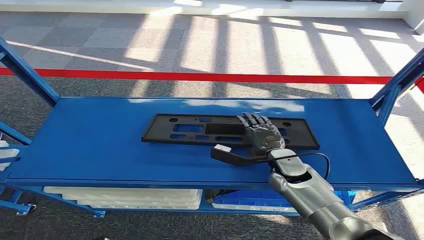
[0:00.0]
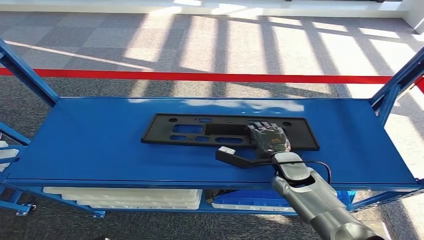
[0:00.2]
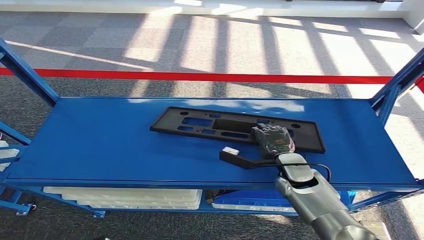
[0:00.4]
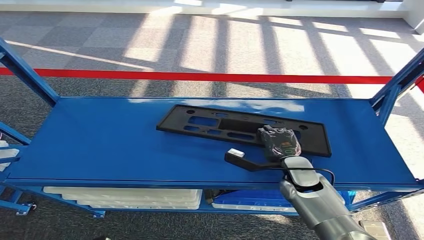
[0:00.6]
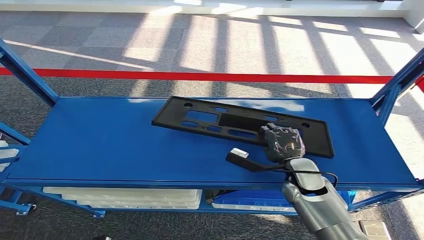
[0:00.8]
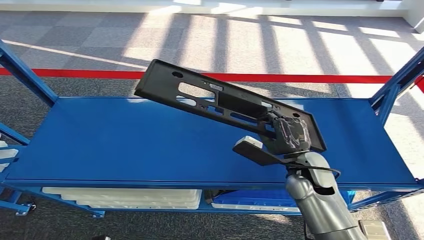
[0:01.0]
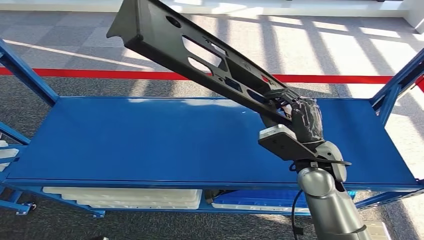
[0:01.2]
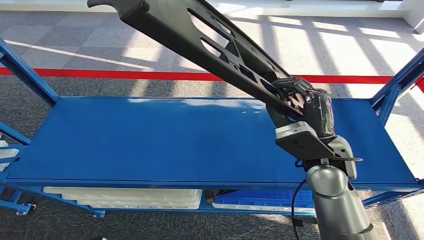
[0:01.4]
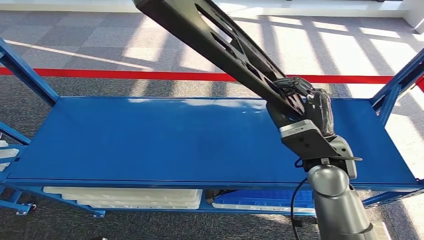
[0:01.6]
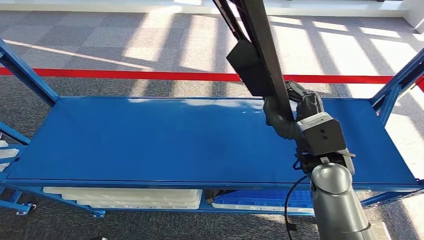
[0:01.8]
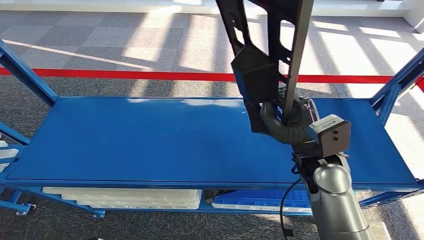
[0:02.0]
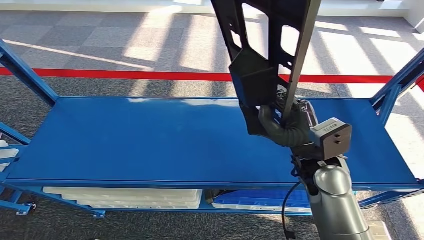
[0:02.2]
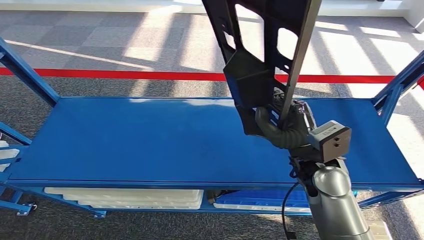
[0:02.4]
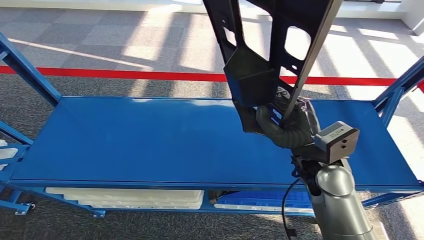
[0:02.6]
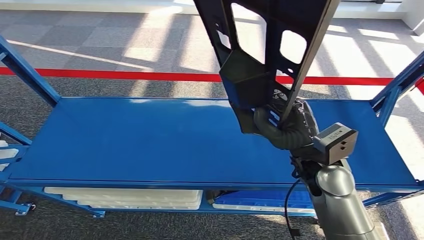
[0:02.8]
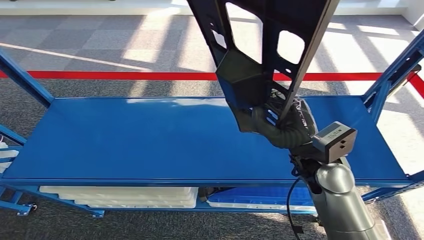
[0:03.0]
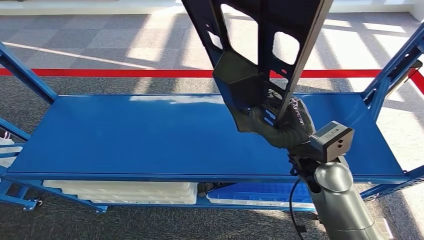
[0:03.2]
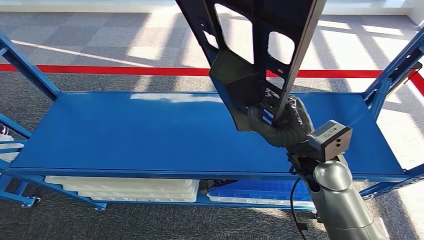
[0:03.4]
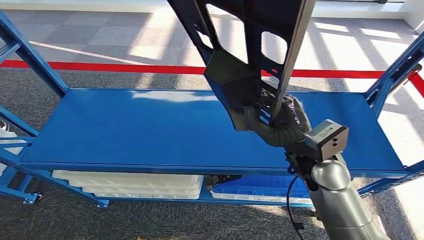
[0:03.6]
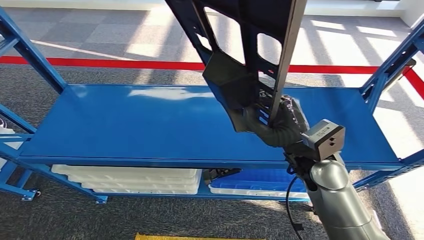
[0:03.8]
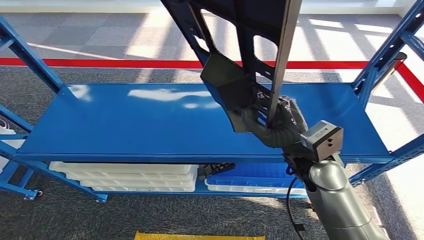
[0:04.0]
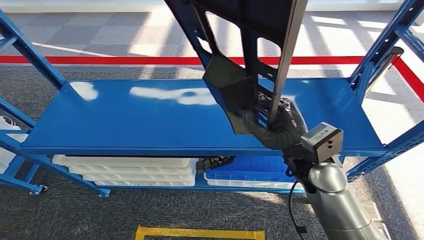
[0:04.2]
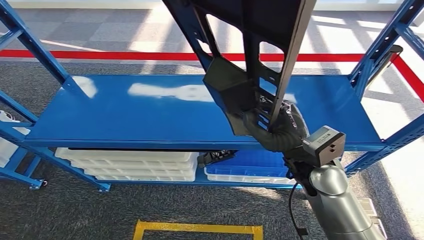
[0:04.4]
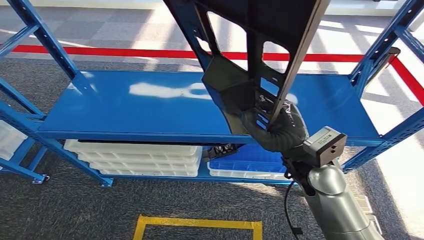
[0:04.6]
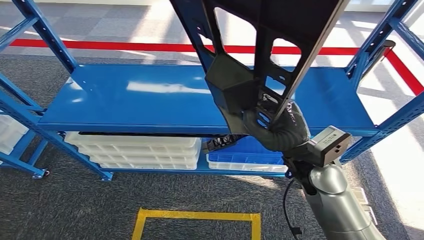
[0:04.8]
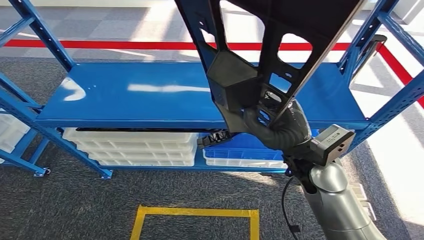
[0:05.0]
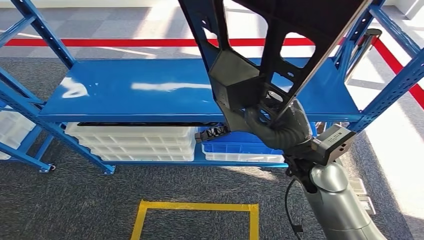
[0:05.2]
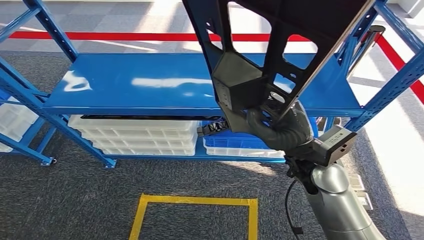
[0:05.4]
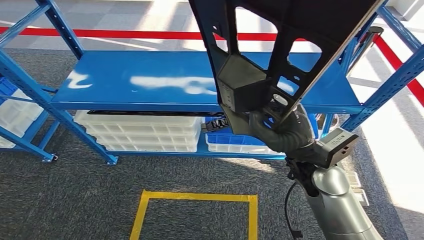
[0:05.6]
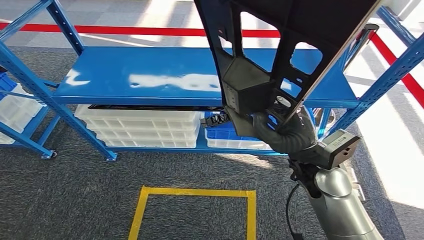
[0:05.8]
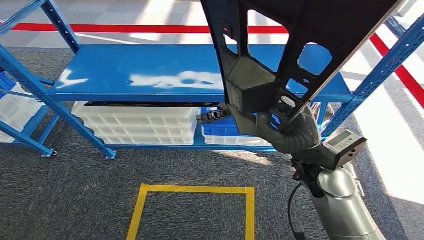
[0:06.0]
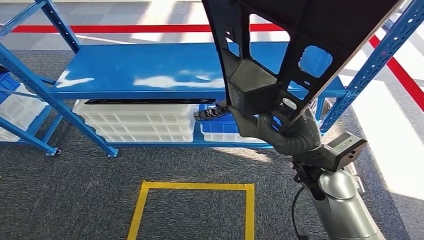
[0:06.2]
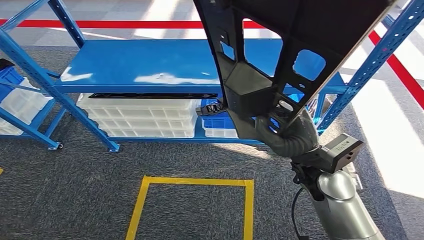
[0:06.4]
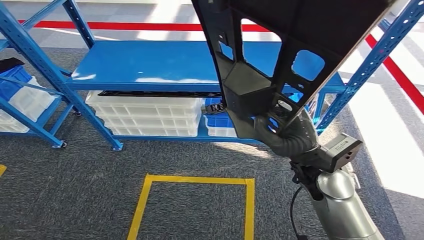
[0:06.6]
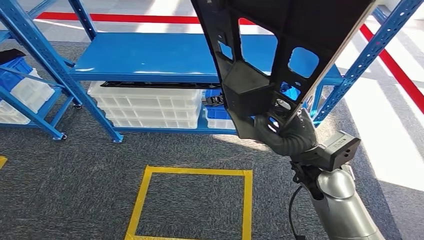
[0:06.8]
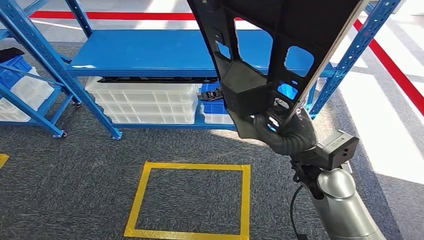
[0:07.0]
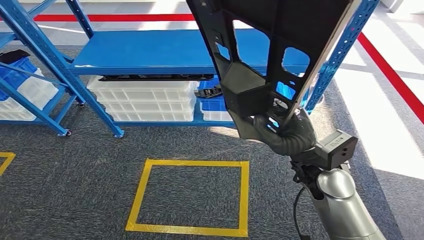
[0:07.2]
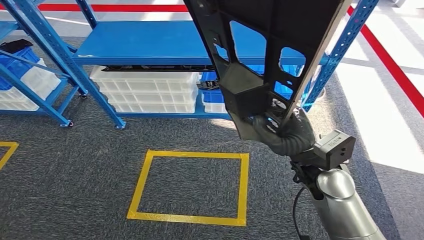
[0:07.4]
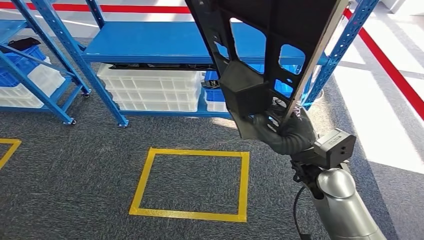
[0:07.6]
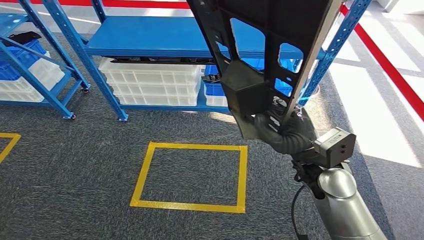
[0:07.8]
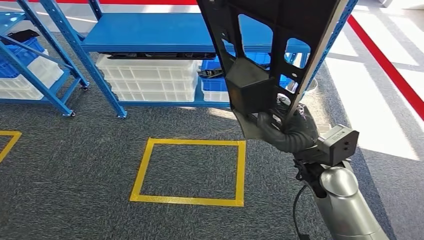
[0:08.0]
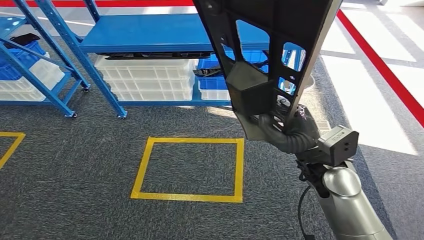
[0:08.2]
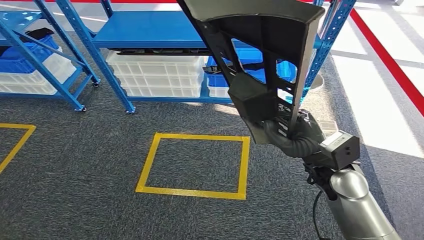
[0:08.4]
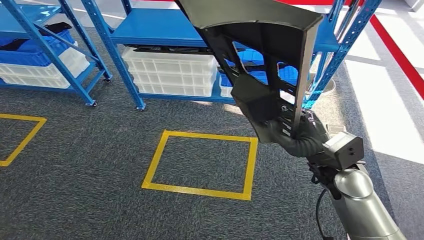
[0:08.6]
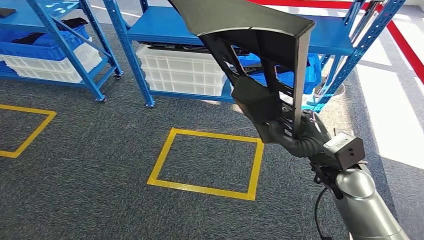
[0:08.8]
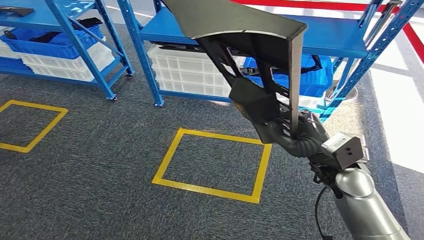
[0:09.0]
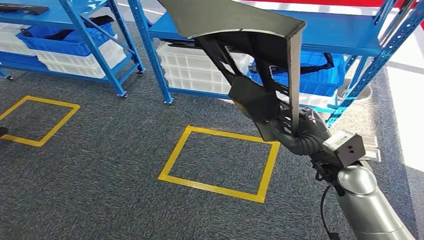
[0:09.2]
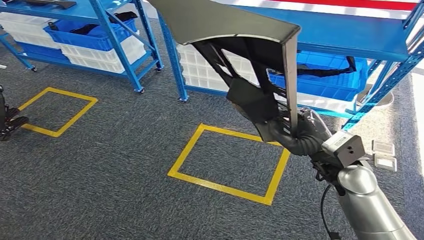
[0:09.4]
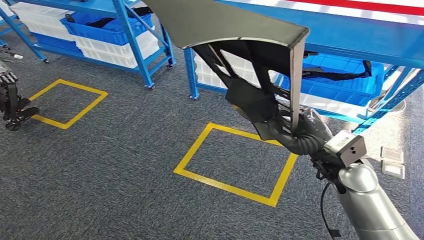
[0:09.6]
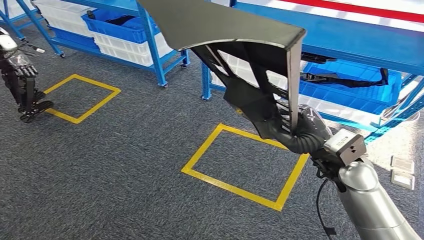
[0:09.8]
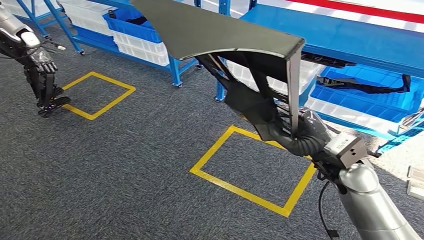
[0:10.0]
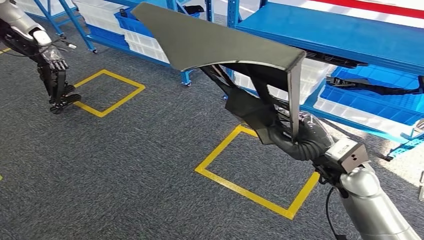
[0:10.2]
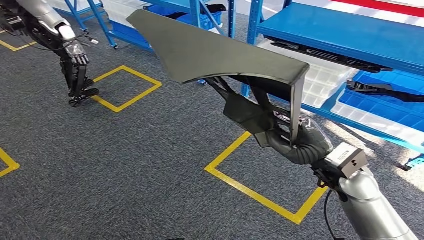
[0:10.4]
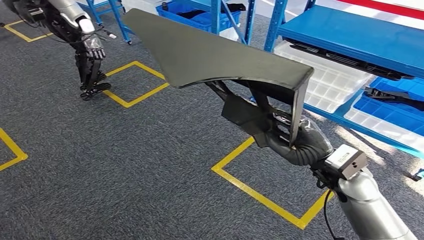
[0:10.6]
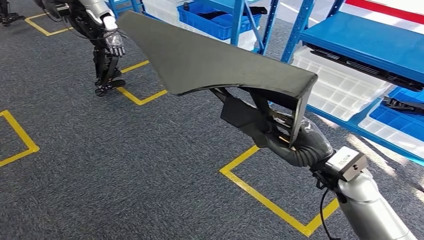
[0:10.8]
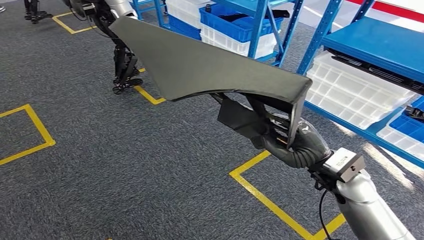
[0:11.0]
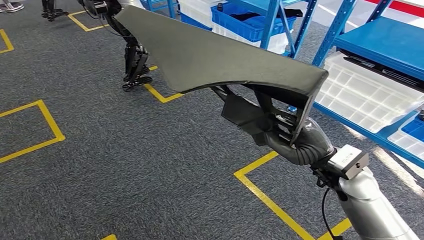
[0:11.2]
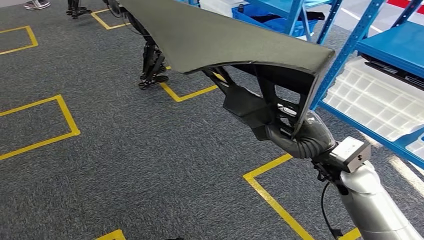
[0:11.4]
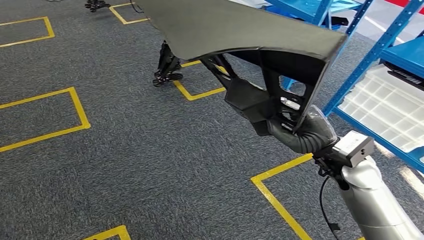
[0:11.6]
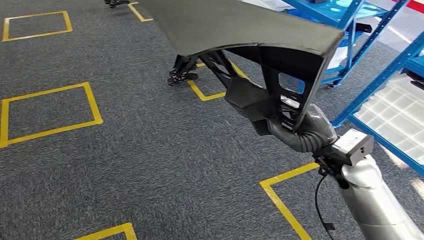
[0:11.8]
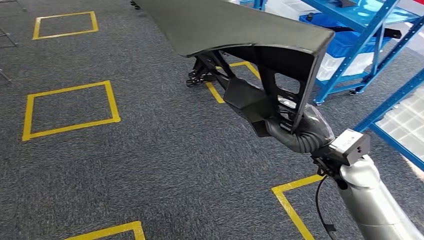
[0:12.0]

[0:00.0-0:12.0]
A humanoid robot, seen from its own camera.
Step, 0:00.0 to 0:02.4: Pick up the small component from the shelf.

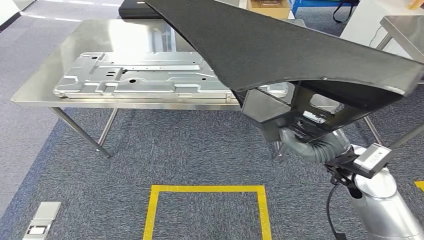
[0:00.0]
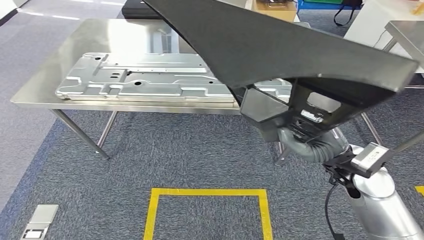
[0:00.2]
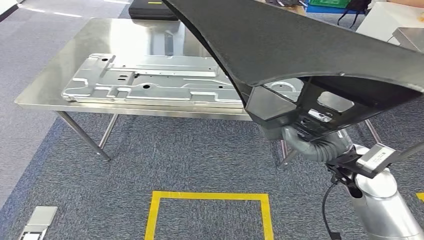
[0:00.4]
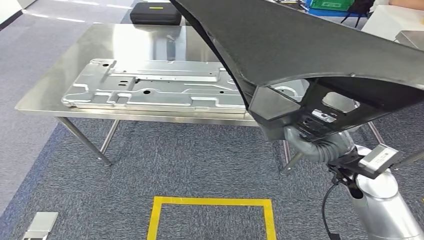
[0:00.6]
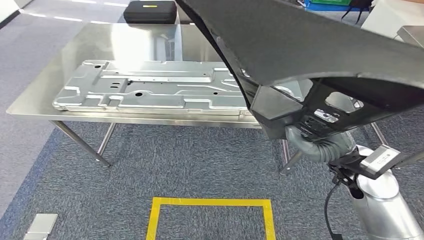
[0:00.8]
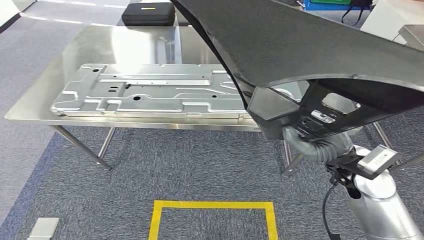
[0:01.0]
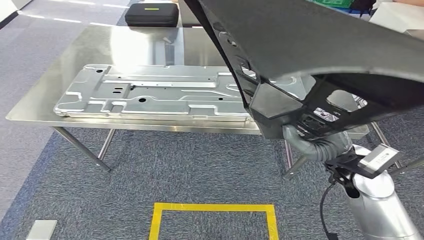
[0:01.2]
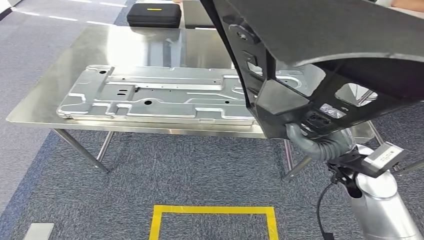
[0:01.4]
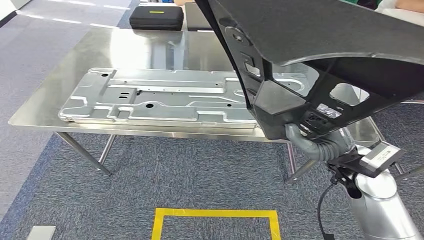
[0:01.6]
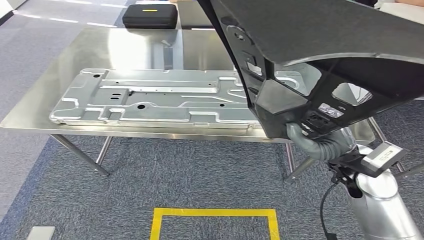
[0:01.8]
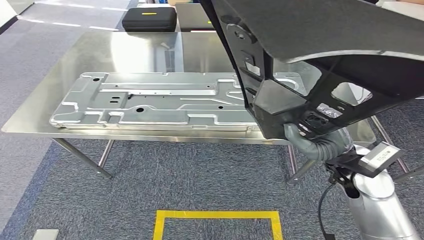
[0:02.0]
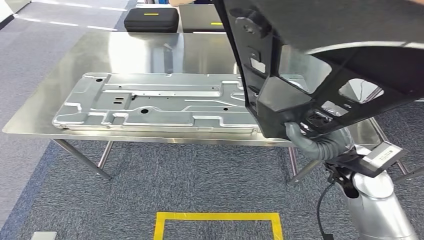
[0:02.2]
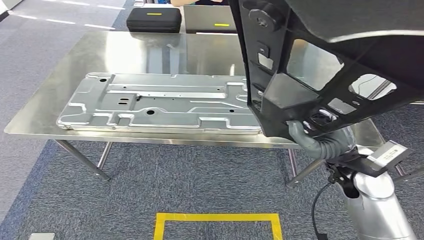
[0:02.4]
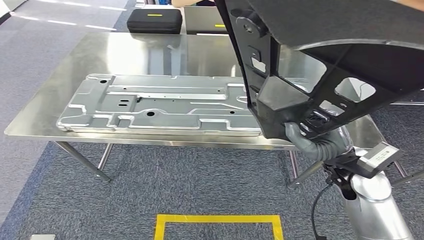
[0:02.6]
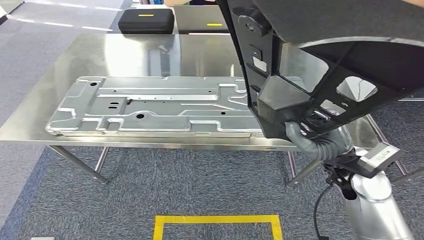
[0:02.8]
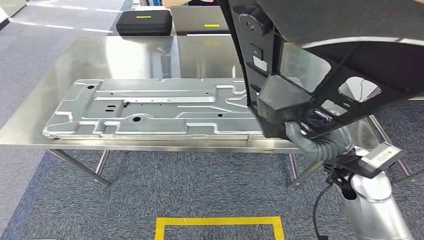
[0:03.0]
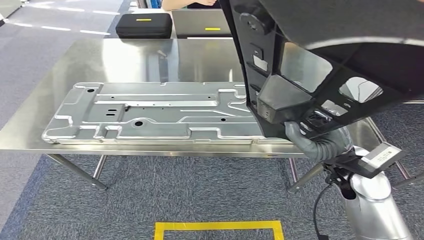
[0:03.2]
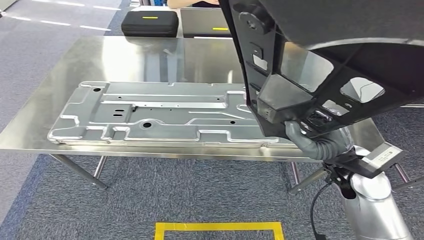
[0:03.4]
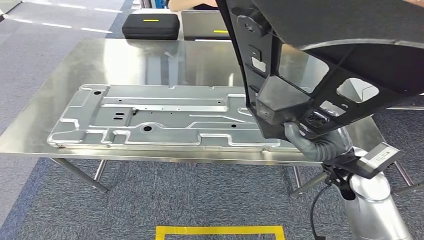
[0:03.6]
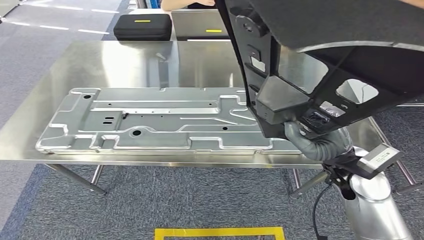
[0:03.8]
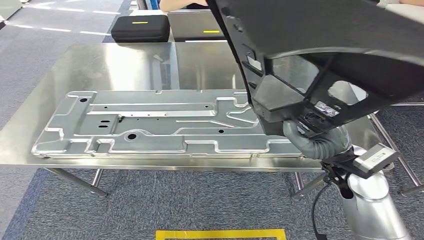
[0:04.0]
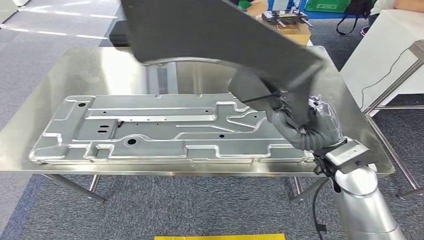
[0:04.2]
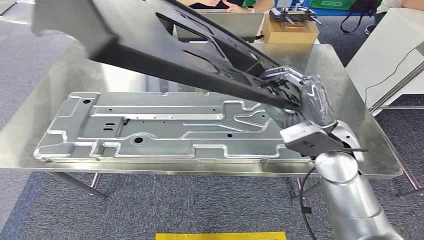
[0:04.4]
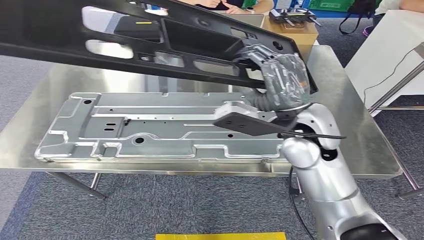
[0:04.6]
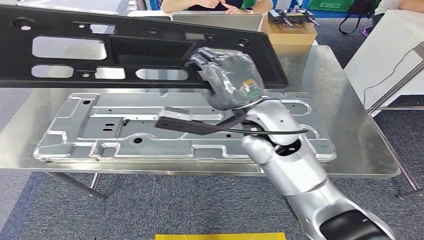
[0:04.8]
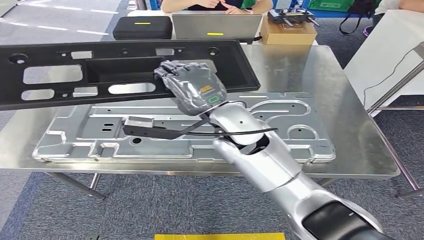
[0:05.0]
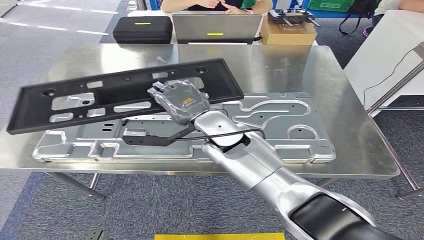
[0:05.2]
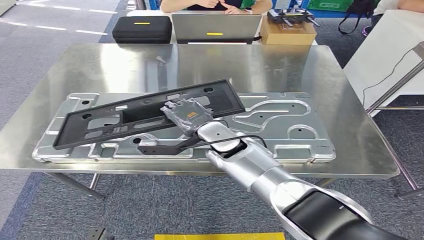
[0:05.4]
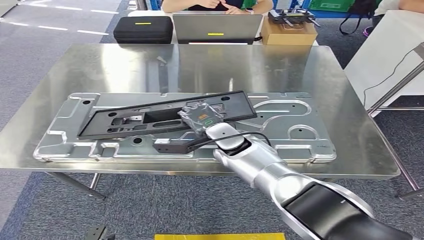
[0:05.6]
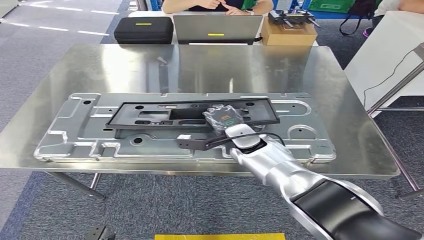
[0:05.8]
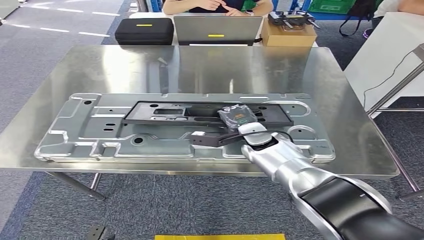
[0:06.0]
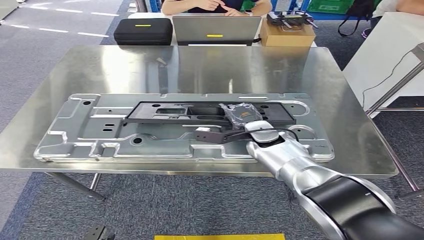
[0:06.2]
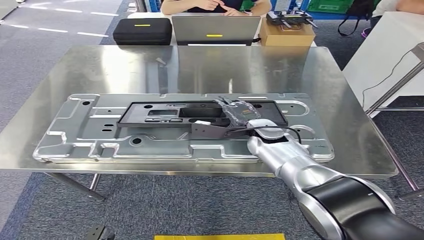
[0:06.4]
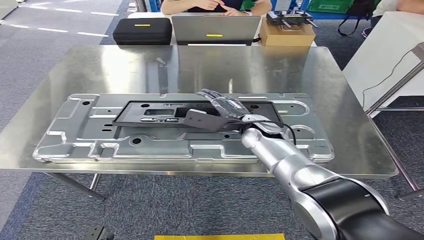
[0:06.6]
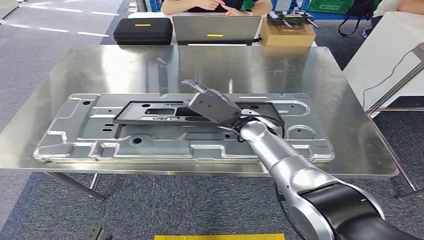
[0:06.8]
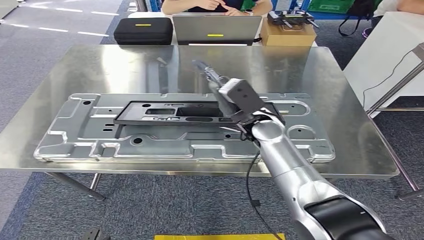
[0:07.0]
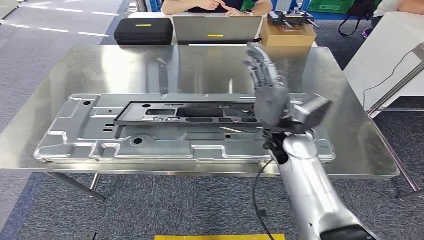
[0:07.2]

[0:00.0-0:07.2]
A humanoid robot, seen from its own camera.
Step, 0:00.0 to 0:04.2: Move the small component to the workbench.
0:05.8 to 0:07.2: The right hand is displaced upward, to the right and backward by about 10 cm.
